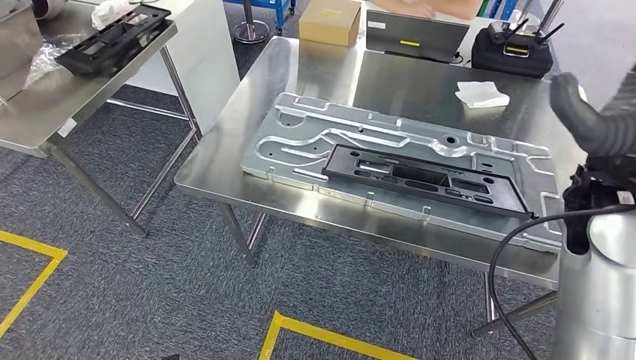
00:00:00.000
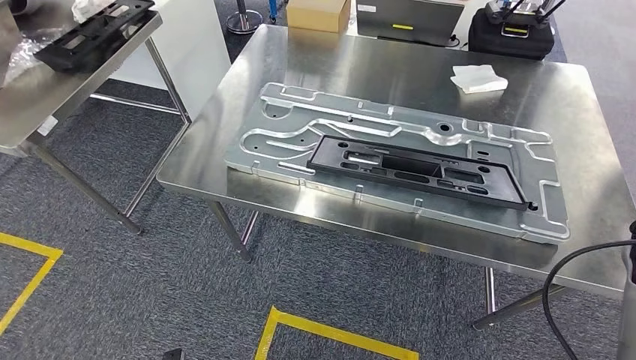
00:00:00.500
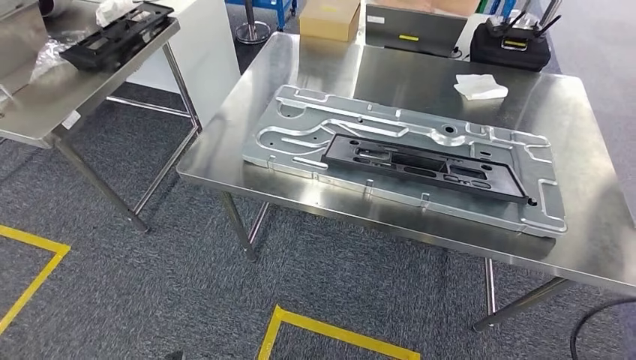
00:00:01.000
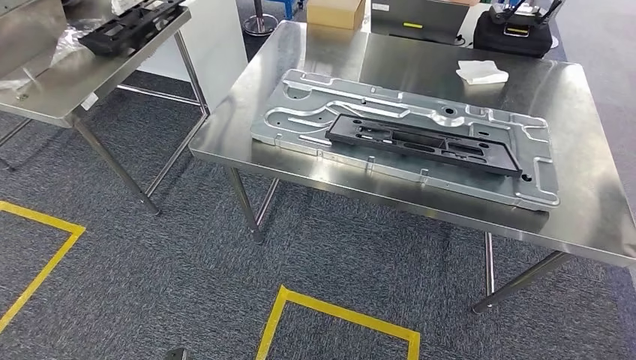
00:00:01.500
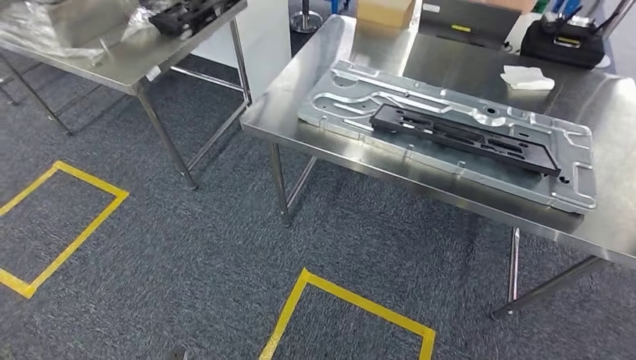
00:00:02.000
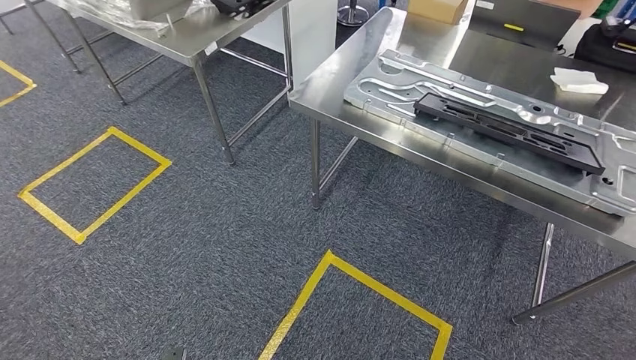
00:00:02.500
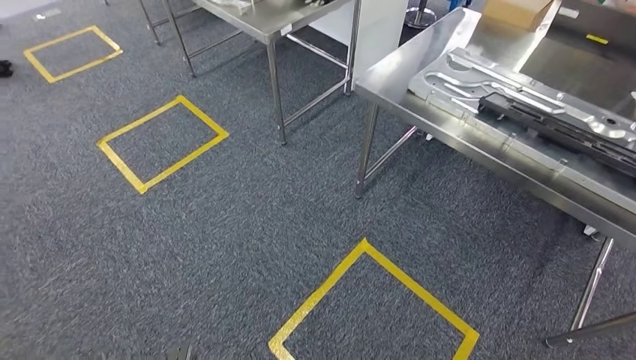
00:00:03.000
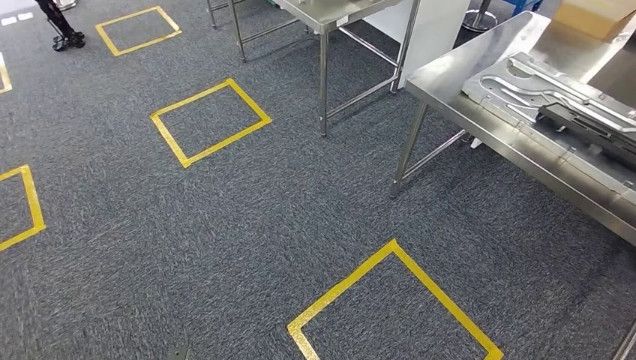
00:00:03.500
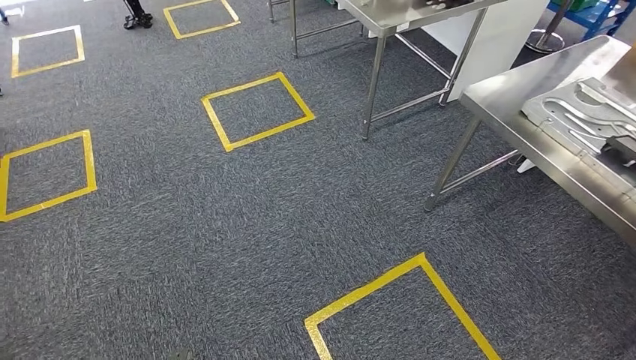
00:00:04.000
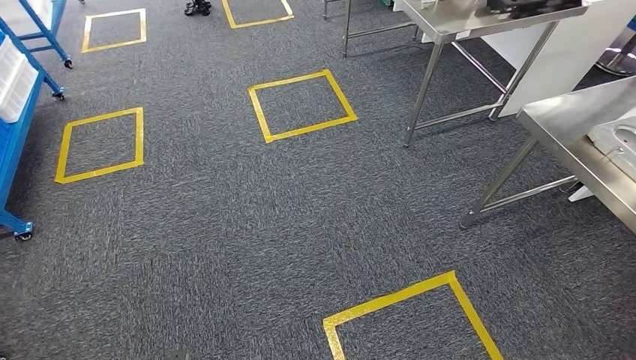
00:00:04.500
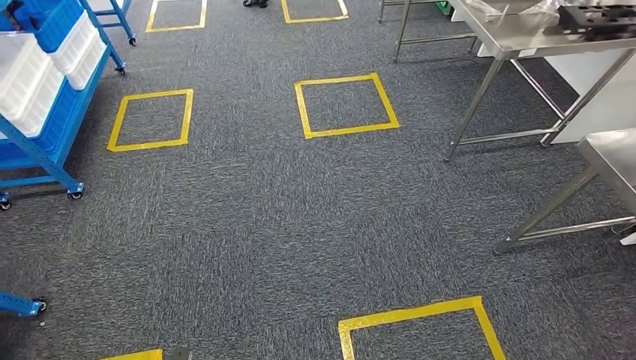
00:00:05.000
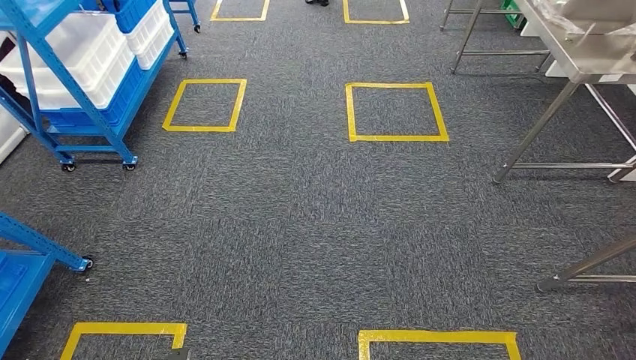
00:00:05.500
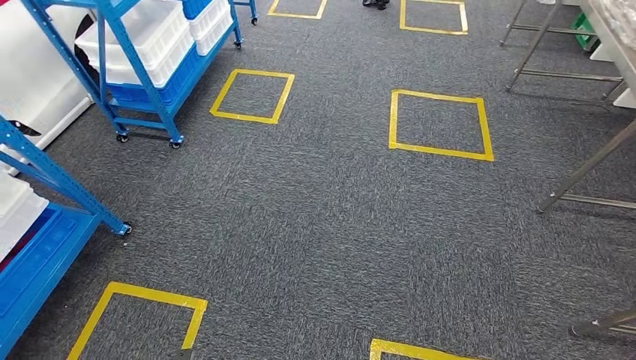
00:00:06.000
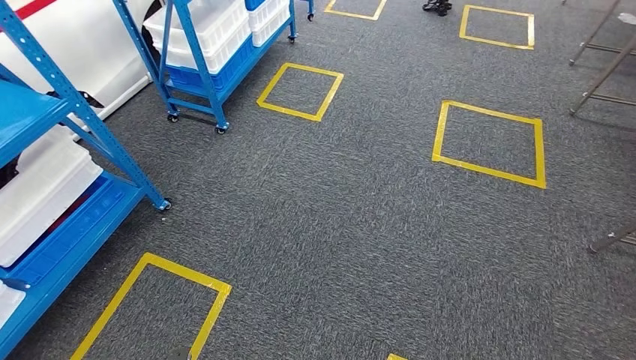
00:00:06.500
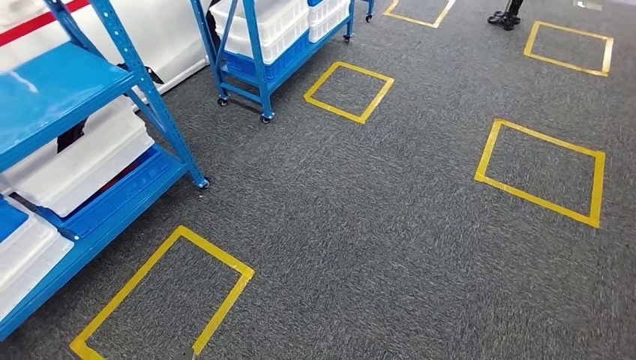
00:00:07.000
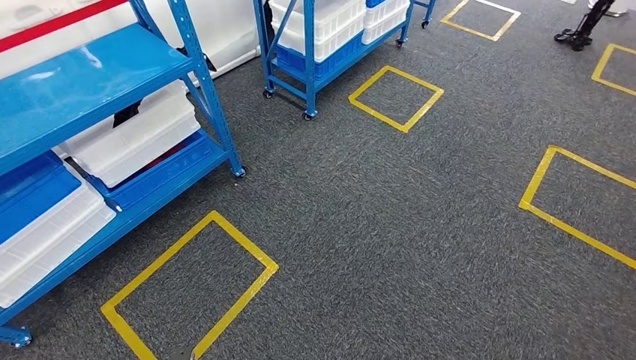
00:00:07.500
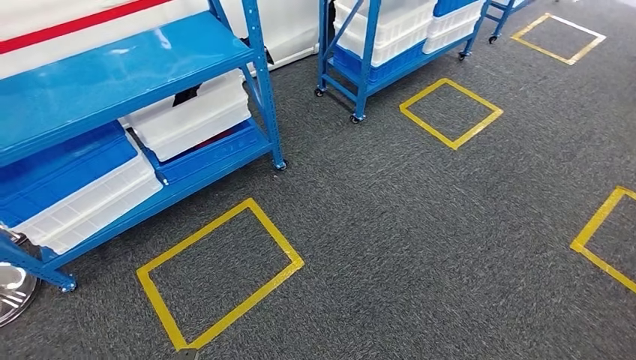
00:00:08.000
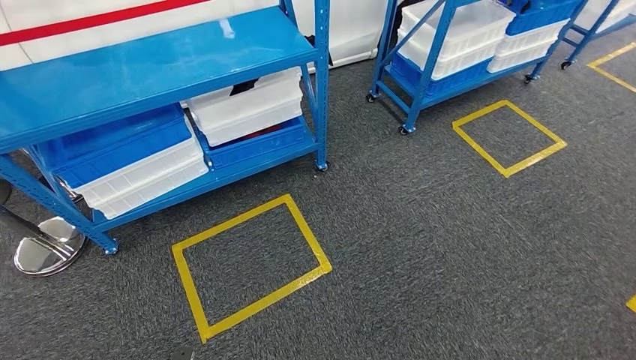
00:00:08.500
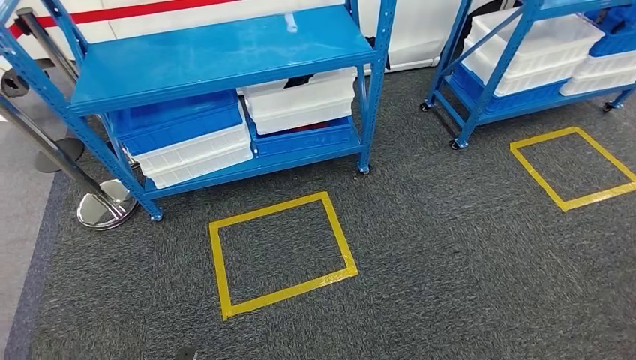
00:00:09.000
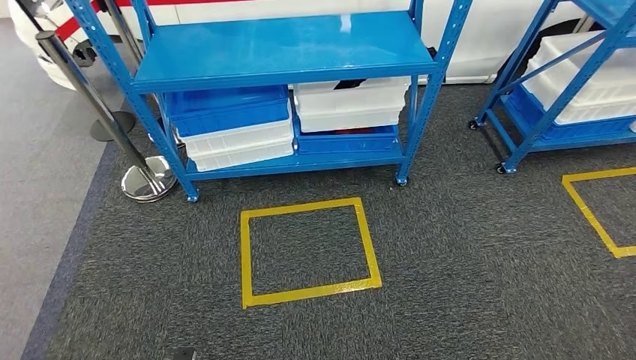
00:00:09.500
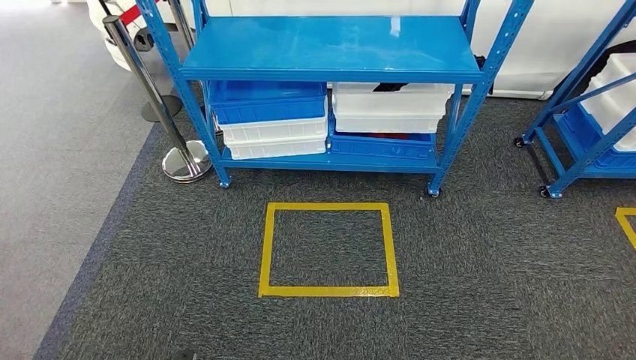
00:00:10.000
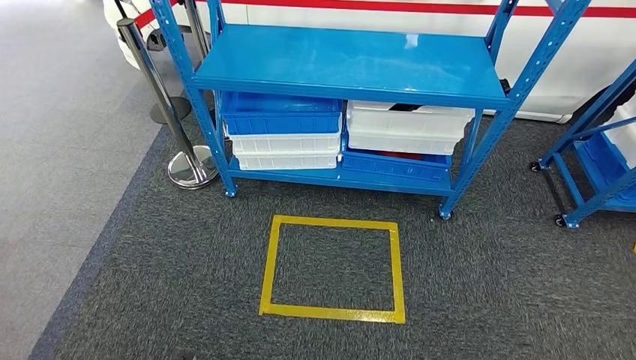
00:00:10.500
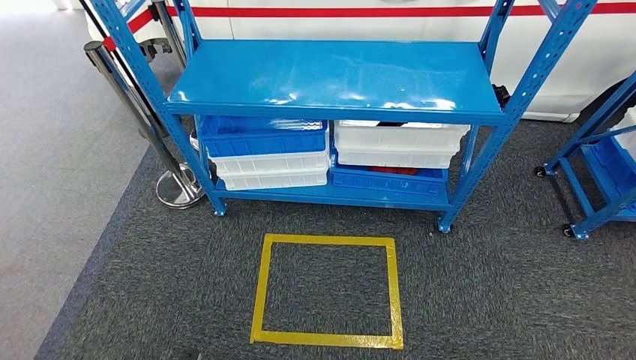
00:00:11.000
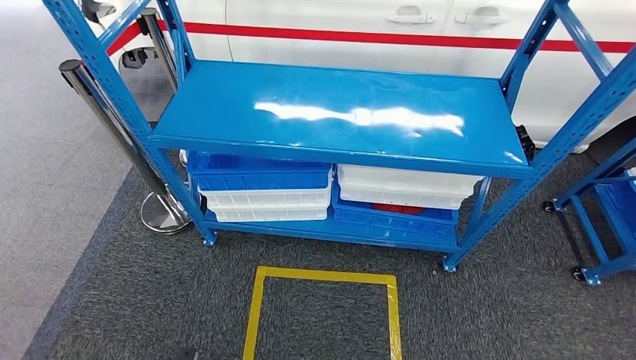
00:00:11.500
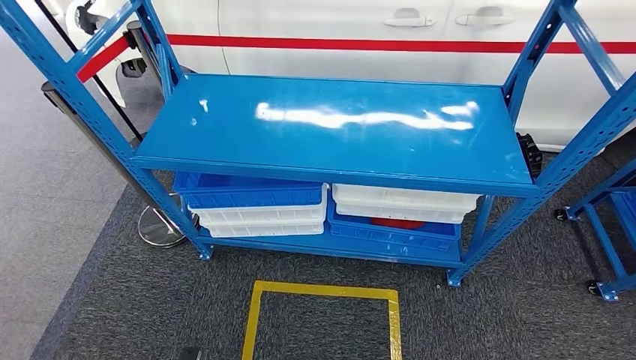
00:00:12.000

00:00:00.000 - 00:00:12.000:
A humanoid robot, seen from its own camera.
Step, 00:00:06.500 - 00:00:12.000: Return to the initial position at the shelf.

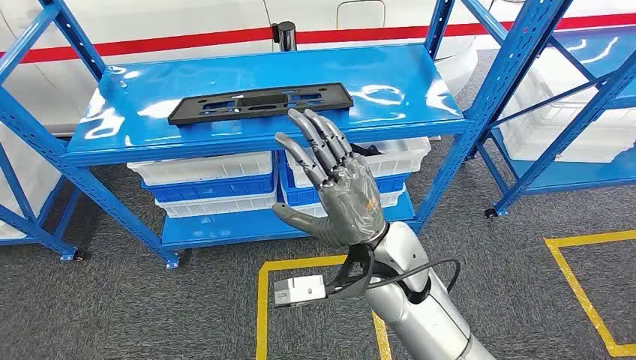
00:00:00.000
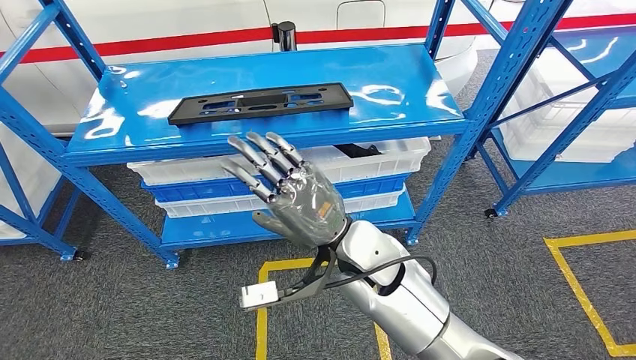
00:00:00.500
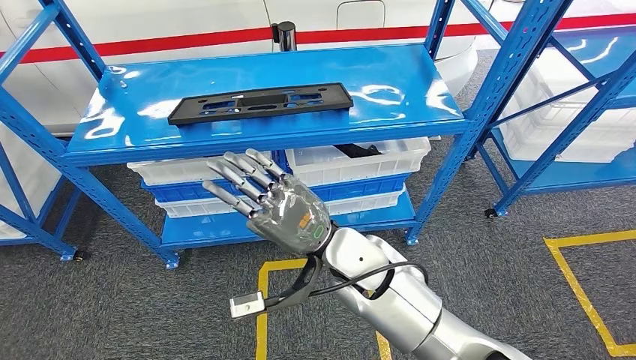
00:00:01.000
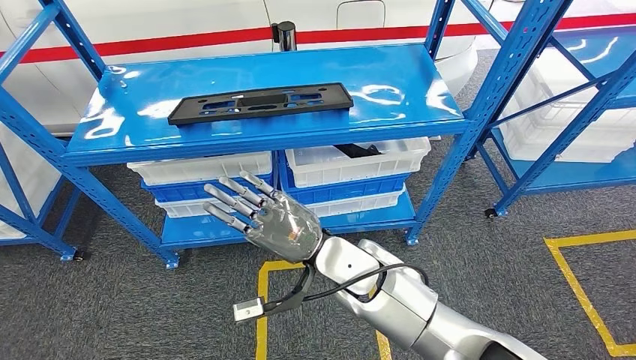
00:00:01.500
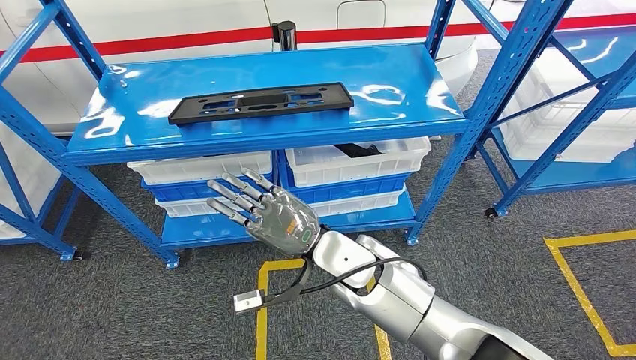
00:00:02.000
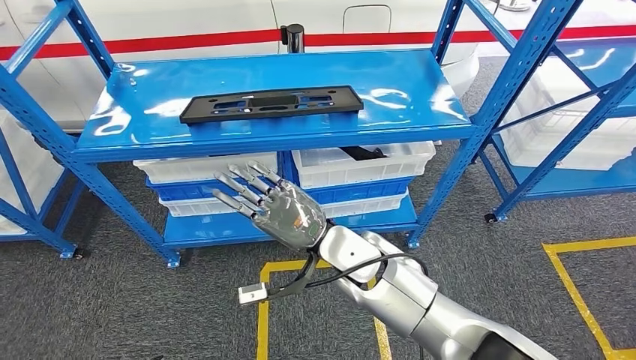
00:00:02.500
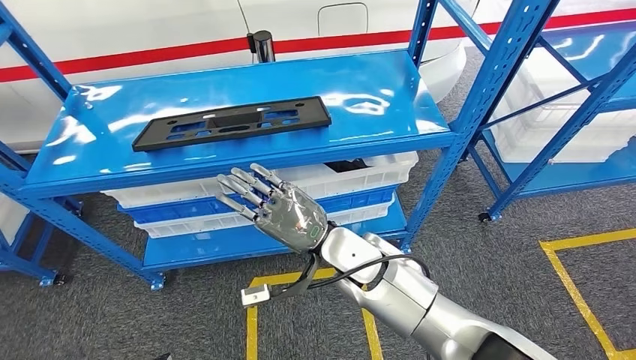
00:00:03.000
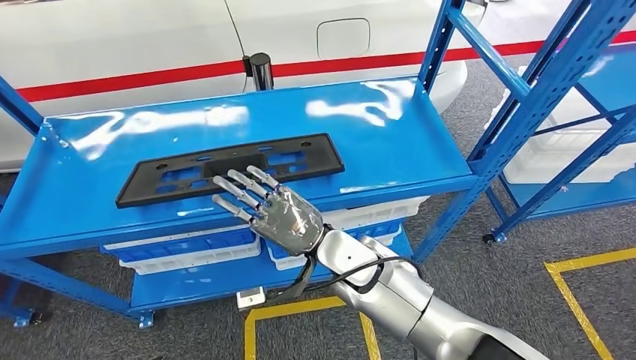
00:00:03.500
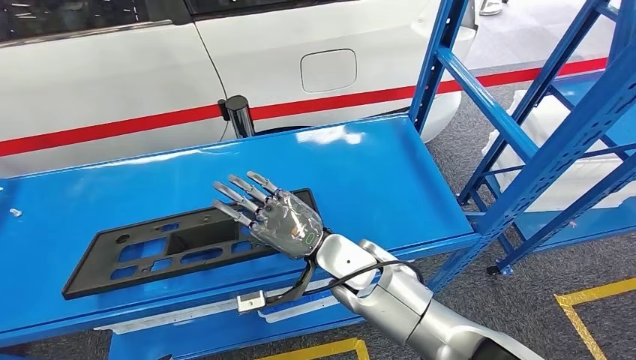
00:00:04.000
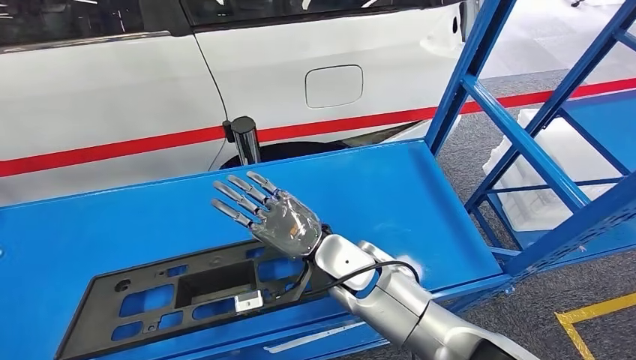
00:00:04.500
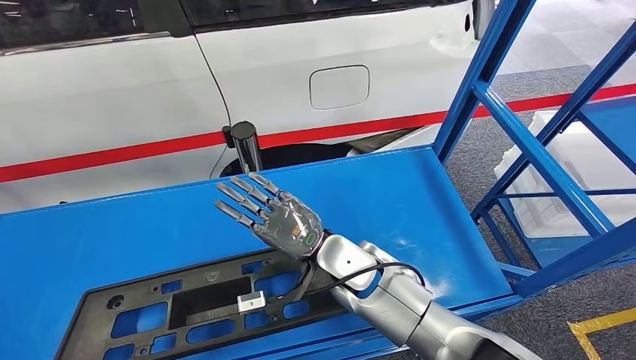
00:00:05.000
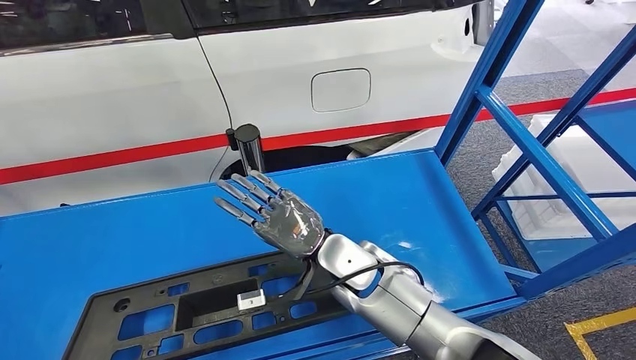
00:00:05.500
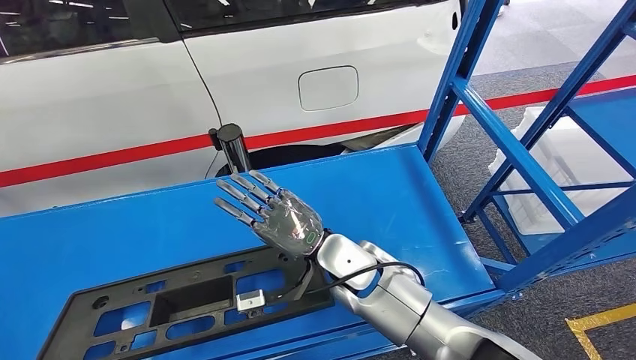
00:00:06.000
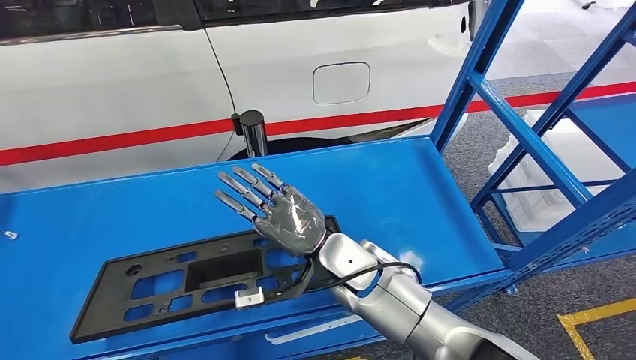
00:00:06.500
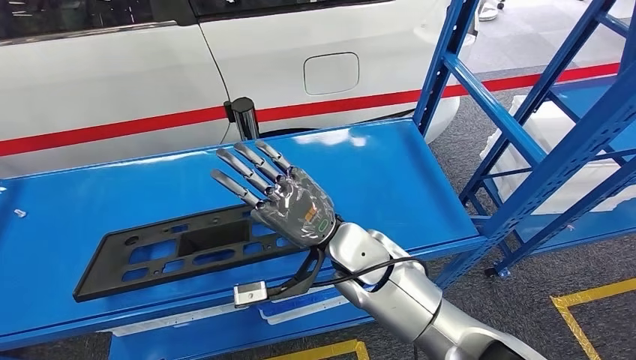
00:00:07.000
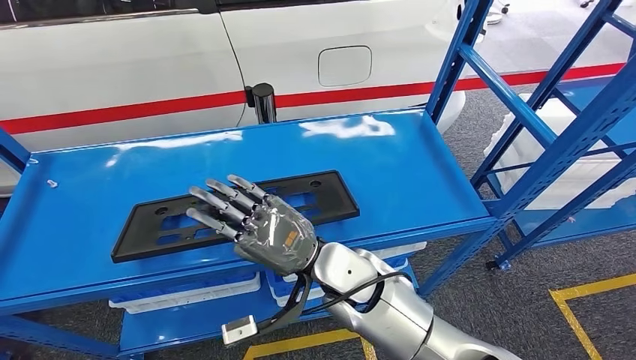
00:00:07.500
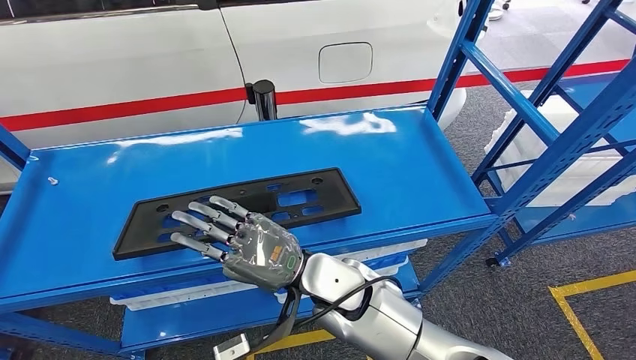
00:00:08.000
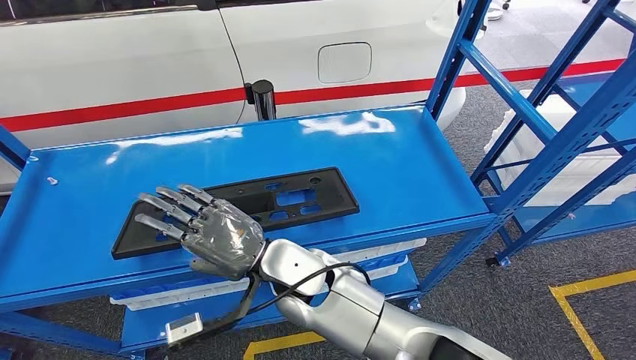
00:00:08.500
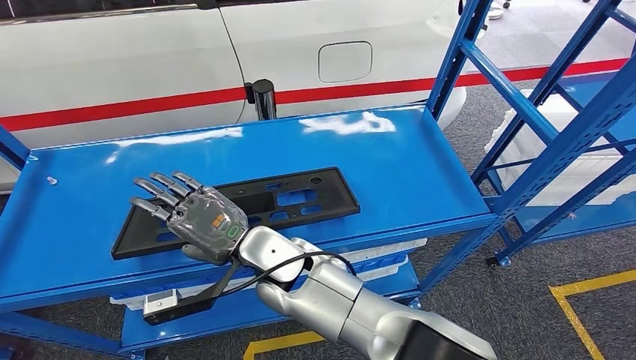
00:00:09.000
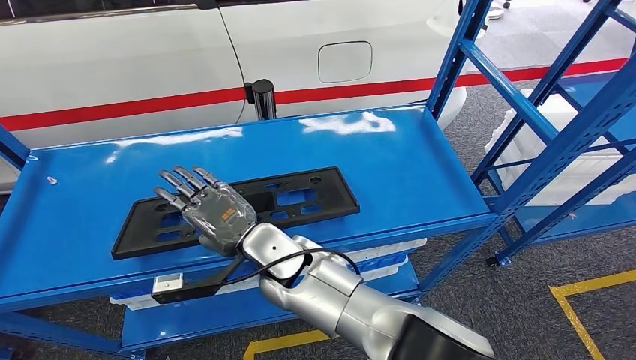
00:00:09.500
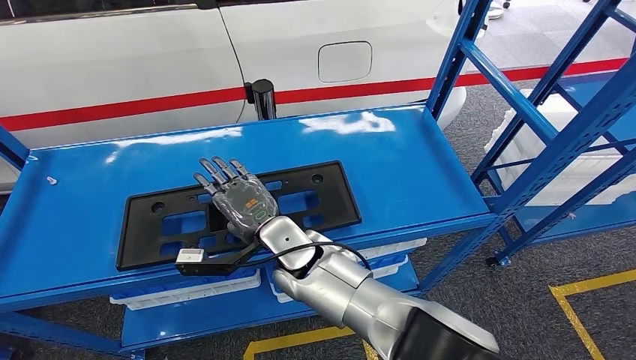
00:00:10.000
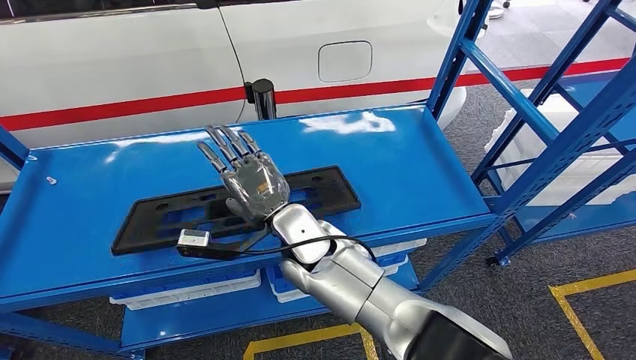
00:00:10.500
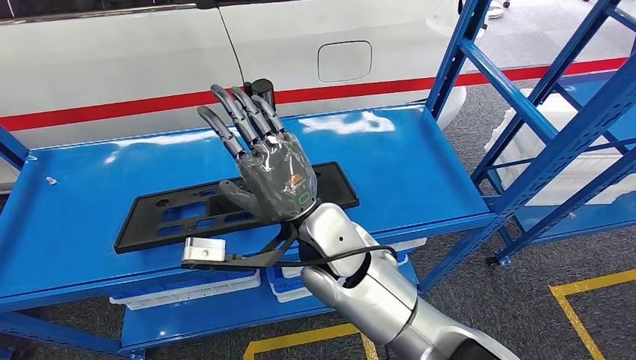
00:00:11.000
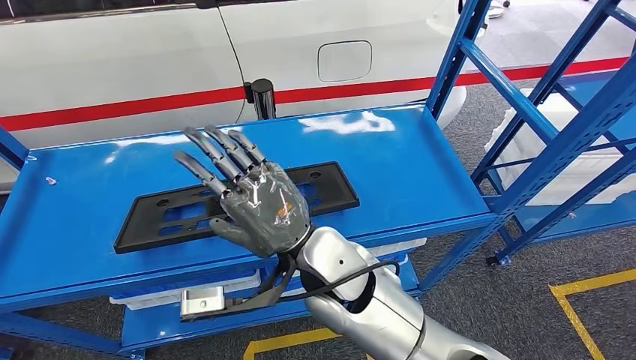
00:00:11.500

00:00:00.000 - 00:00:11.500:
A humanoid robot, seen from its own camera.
00:00:09.500 - 00:00:11.500: The right hand shifts some 5 cm upward.
